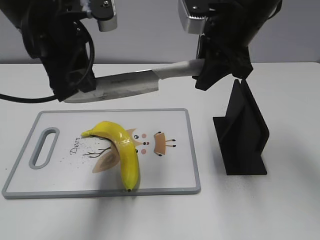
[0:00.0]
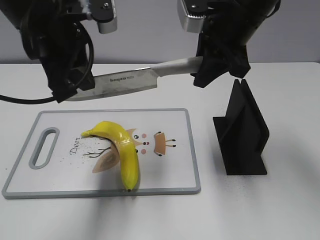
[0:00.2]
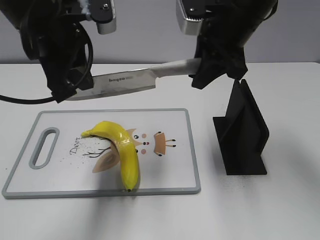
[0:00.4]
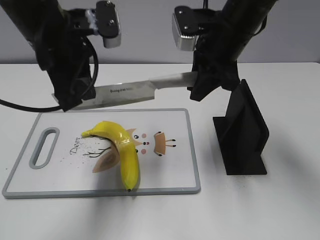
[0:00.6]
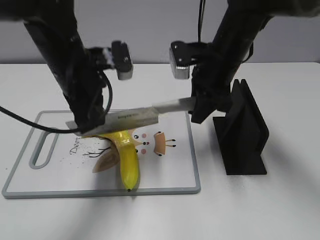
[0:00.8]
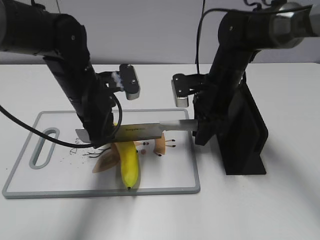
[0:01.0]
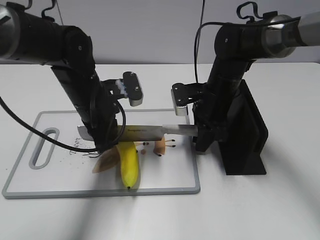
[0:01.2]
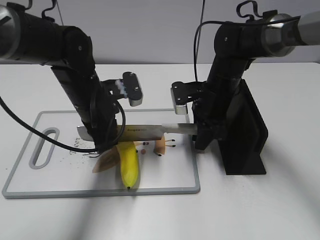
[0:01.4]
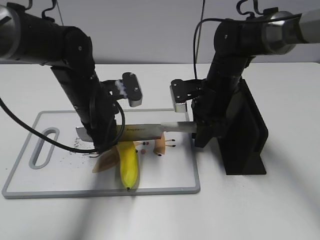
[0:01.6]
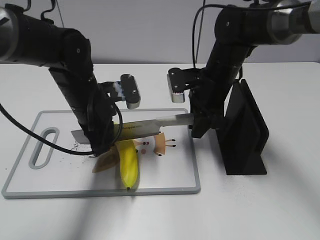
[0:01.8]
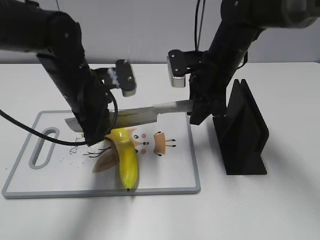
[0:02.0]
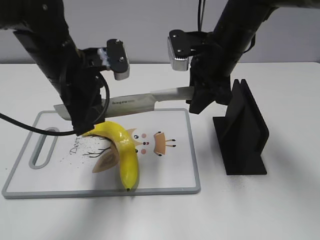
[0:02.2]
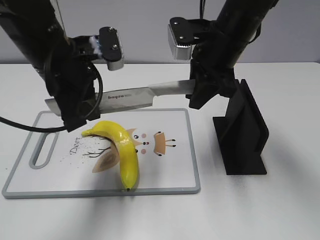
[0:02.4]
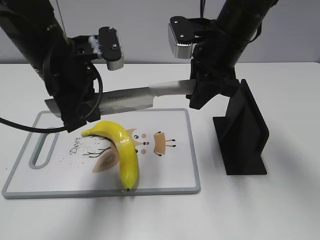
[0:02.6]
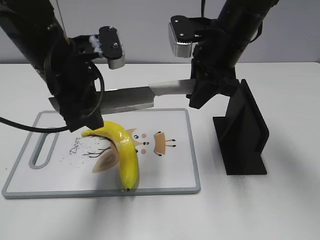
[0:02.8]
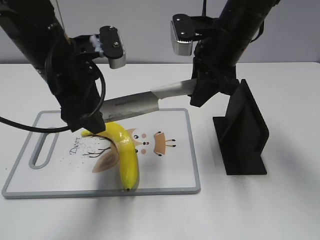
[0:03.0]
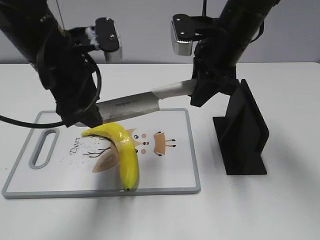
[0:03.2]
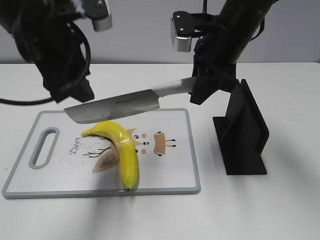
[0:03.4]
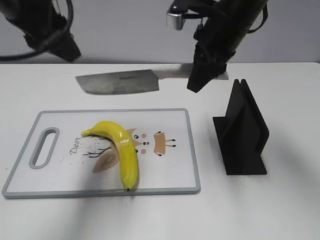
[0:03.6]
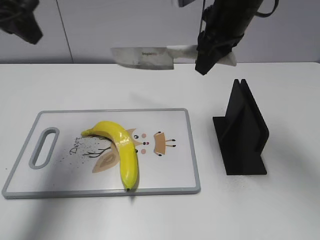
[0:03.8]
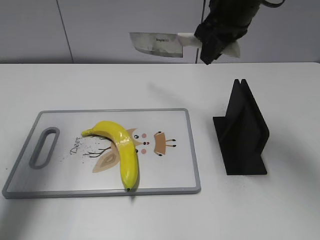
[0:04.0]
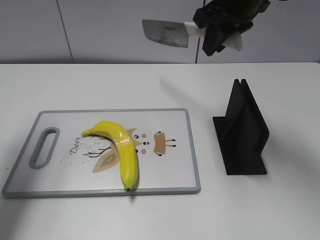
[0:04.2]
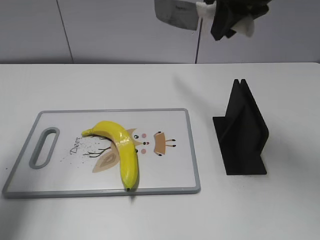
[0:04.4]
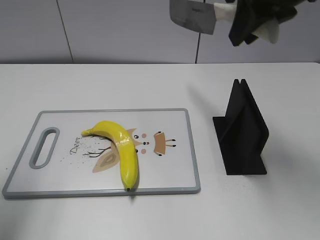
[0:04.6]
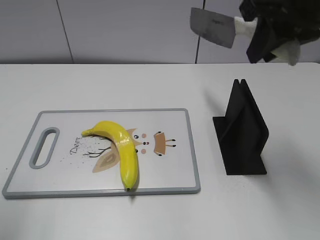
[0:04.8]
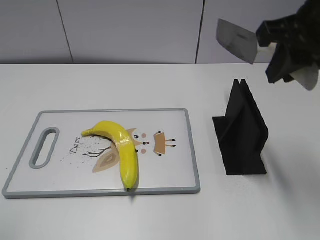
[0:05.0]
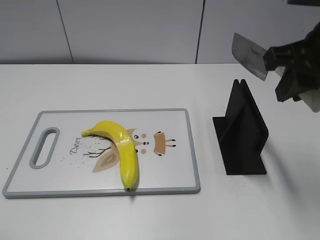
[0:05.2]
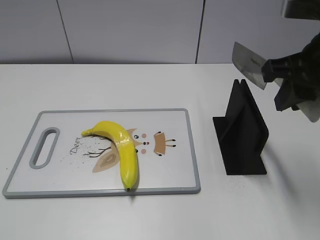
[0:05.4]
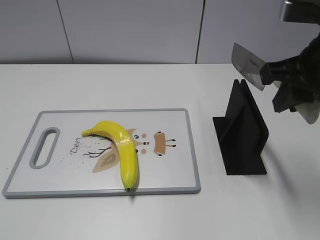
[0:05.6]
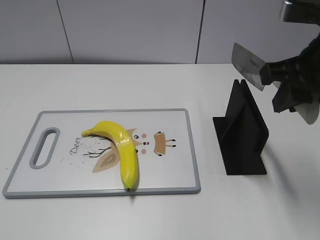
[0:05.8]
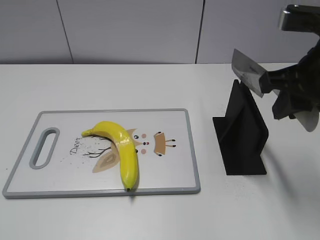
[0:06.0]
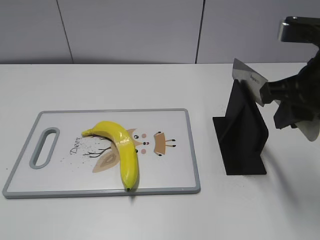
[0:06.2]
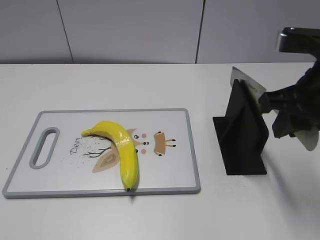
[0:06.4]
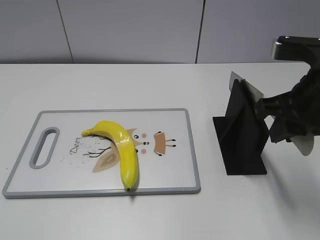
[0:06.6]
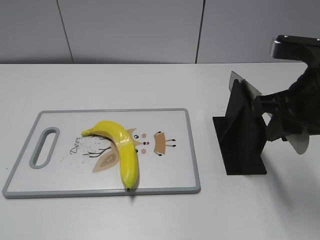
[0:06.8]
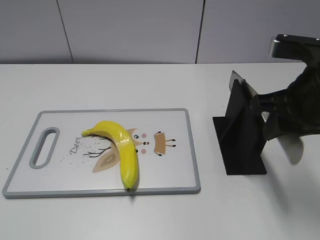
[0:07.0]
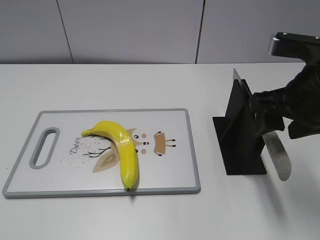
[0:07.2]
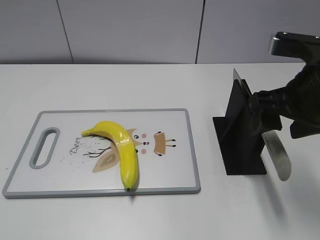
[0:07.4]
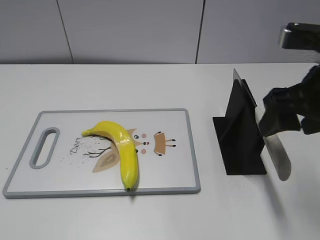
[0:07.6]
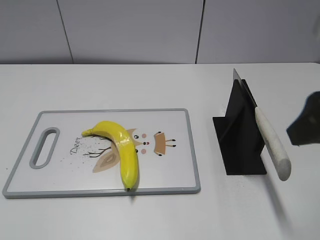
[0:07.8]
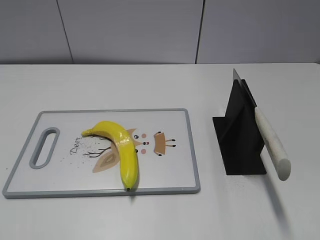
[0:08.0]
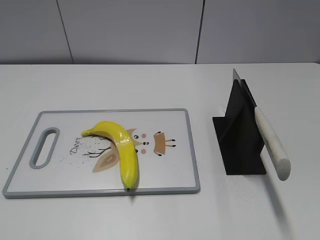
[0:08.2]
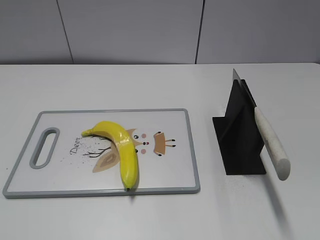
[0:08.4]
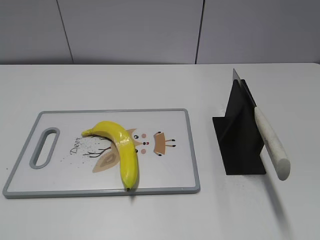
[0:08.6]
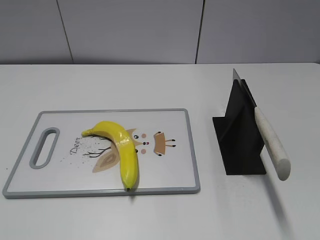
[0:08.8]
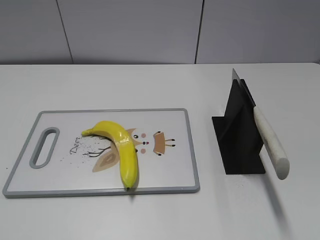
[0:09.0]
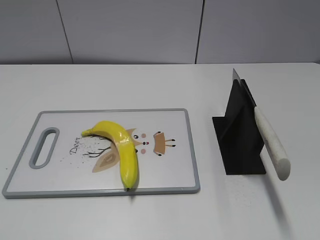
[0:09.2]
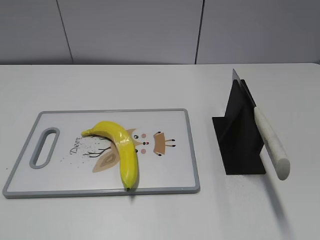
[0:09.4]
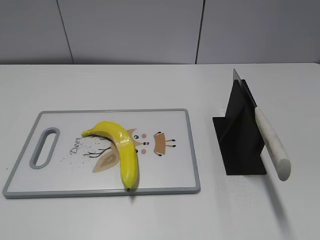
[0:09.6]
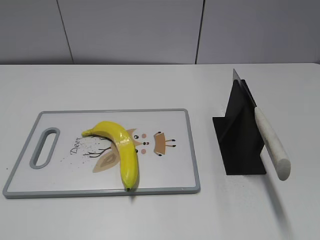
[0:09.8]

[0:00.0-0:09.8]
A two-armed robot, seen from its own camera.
Task of the whole recording: cut plastic banana.
Step, 0:00.0 to 0:02.6: Lift the knife with your right hand.
Step, 0:02.8 to 0:04.4: Cut the banana with your right hand.
Step, 0:04.6 to 0:06.2: Lift the knife with your right hand.
Step, 0:06.4 to 0:09.8: Place the knife on the storage rack with your right hand.
0:00.0 to 0:01.4: Both grippers travel together downward, approximately 15 cm. The left gripper closes its fingers.
0:01.4 to 0:02.8: Both grippers travel together upward, approximately 10 cm. The left gripper opens up.
0:02.8 to 0:04.2: The left gripper shifts approximately 20 cm to the left and upward. The right gripper travels upward by roughly 5 cm.
0:04.2 to 0:05.6: The right gripper moves backward and to the right, approximately 15 cm, while the left gripper travels backward by some 30 cm.
0:05.6 to 0:07.0: The grippers stay close to where they were, moving slightly.
0:07.0 to 0:08.4: The right gripper heads backward and to the right, covering about 20 cm, and opens.
